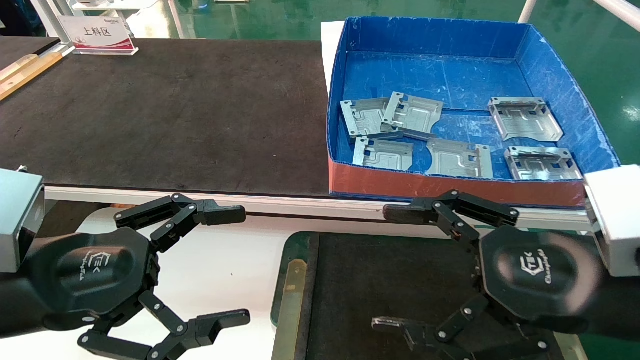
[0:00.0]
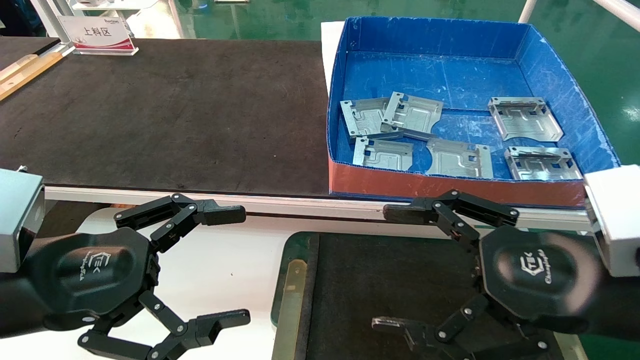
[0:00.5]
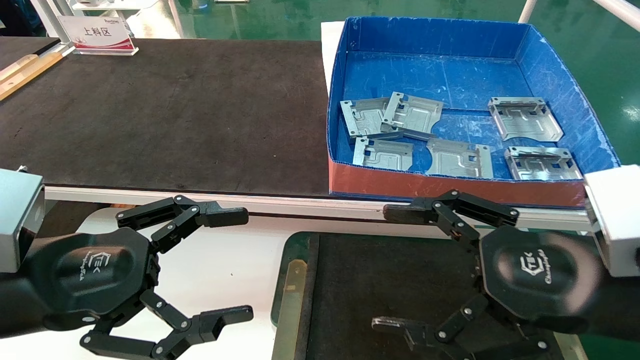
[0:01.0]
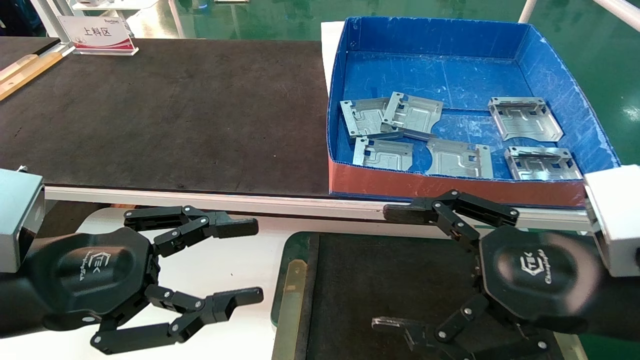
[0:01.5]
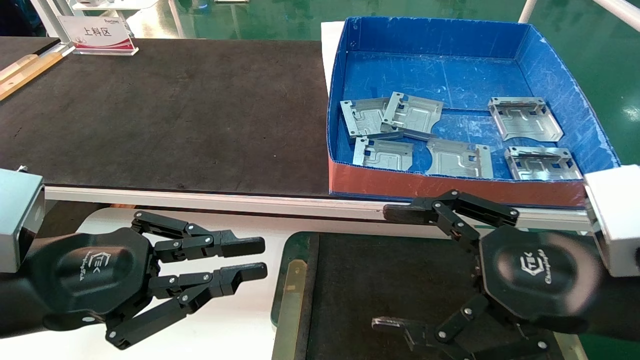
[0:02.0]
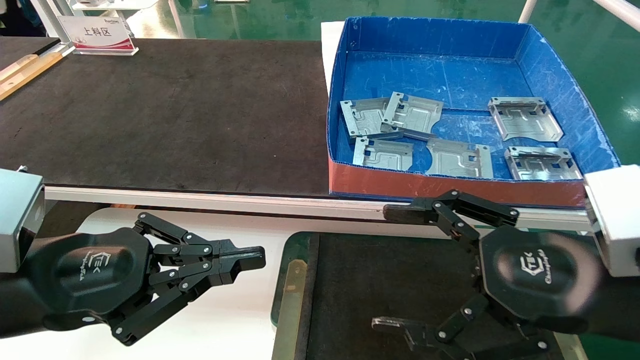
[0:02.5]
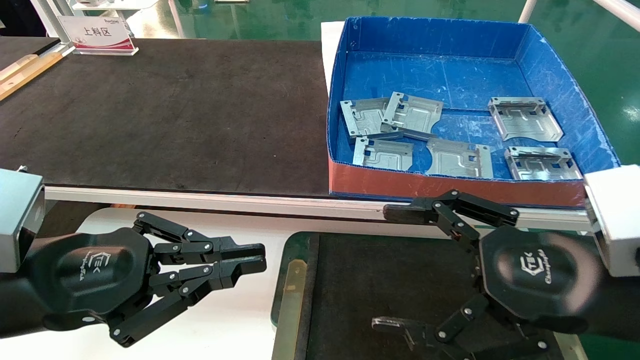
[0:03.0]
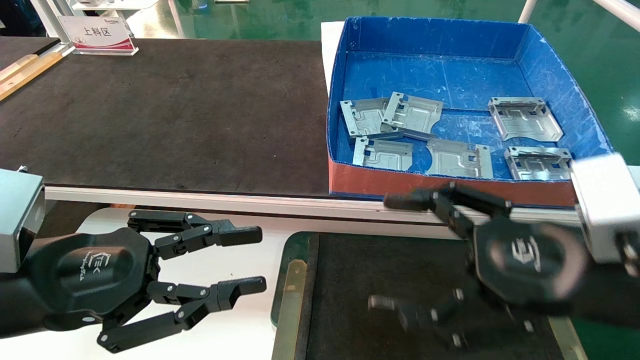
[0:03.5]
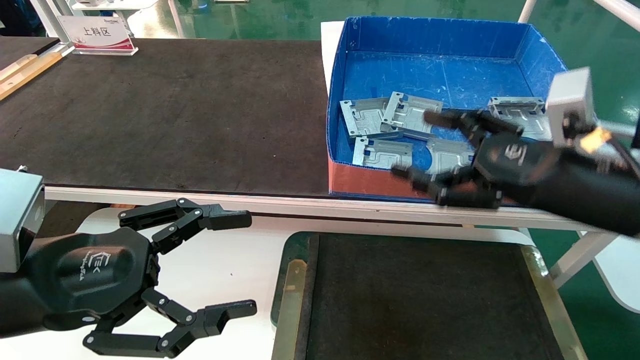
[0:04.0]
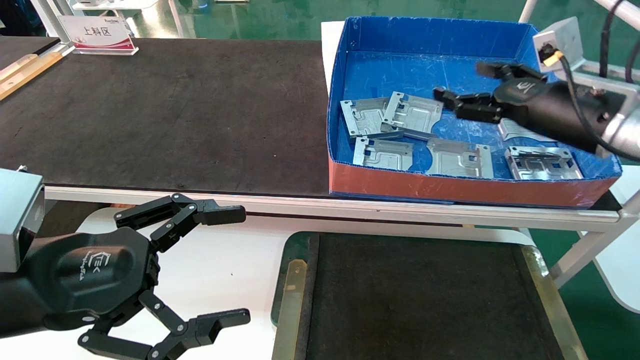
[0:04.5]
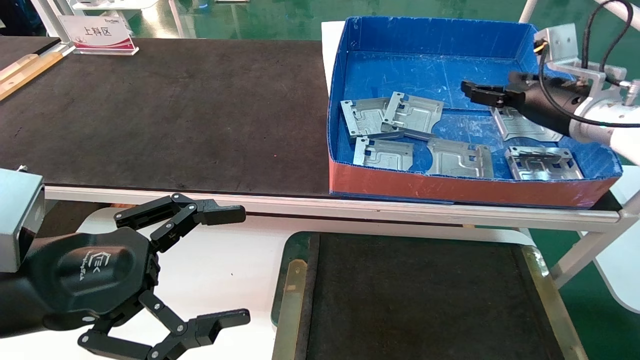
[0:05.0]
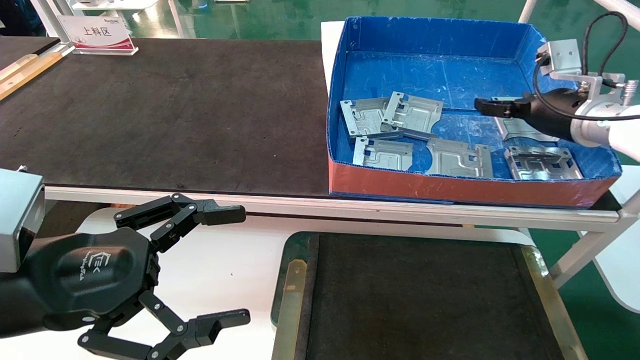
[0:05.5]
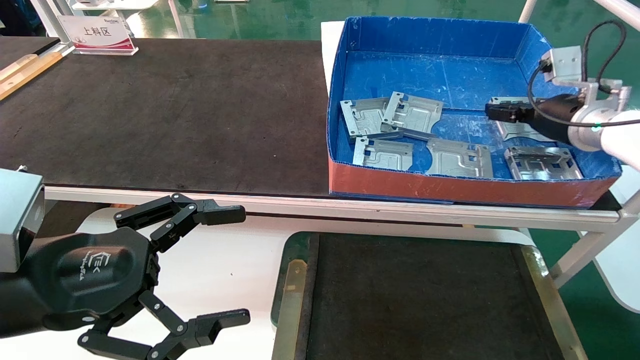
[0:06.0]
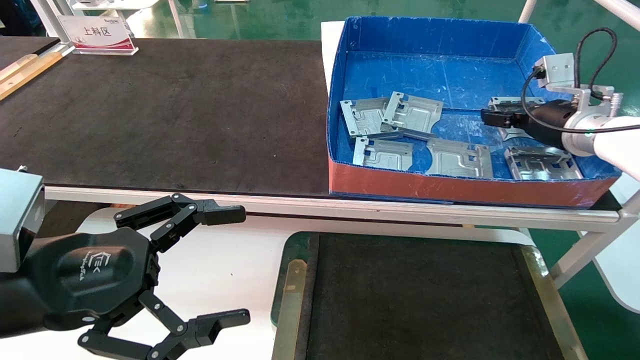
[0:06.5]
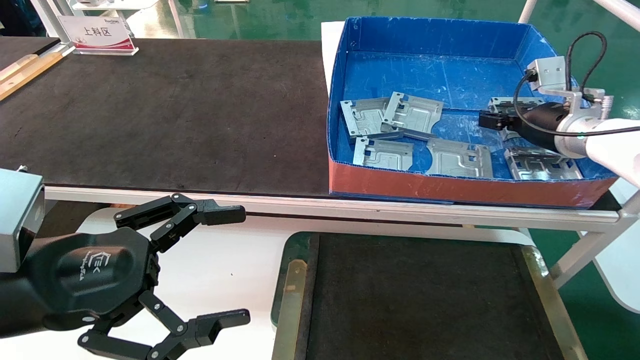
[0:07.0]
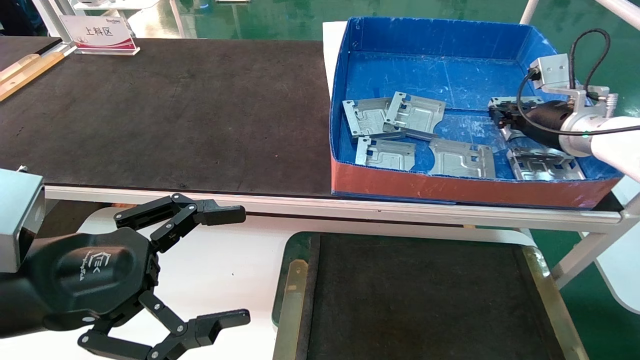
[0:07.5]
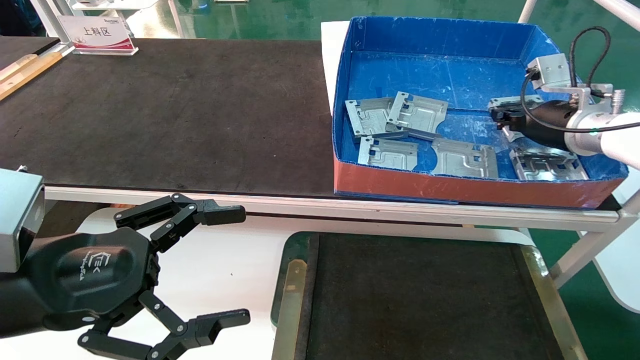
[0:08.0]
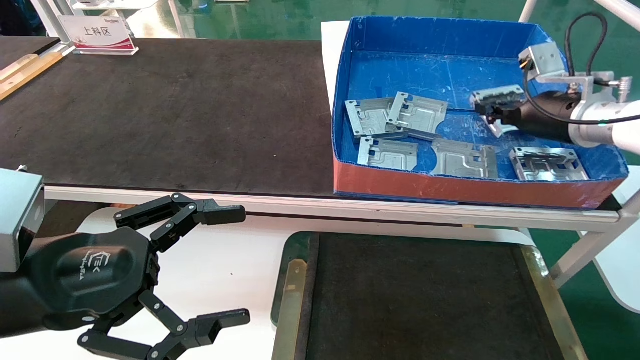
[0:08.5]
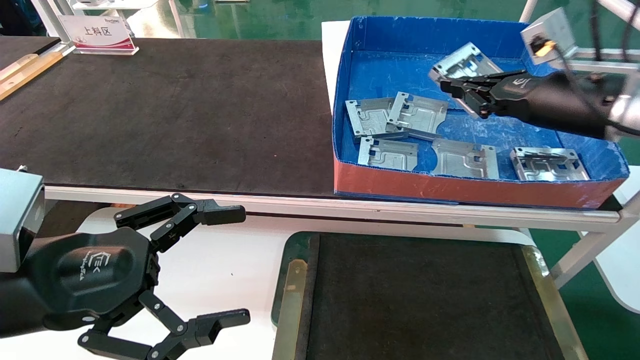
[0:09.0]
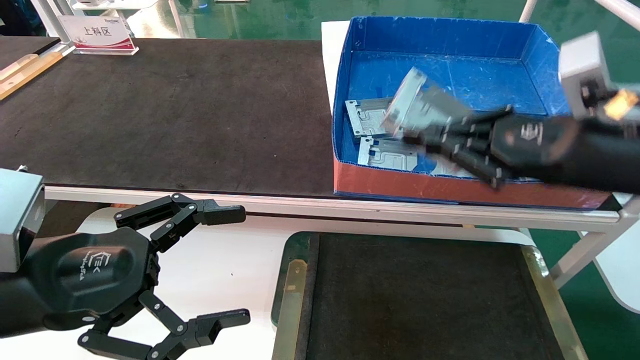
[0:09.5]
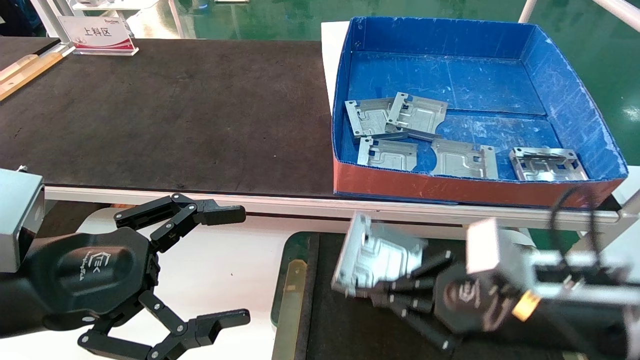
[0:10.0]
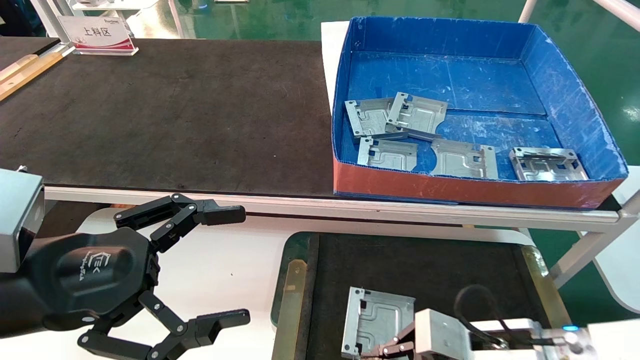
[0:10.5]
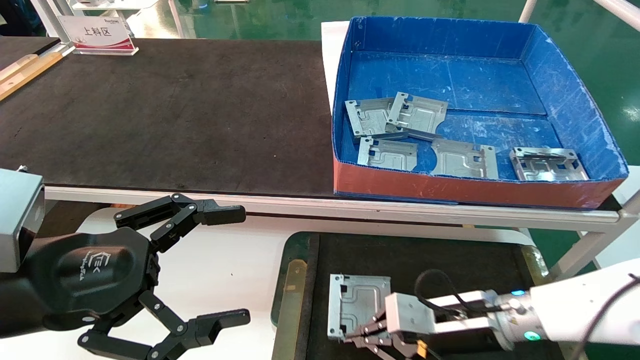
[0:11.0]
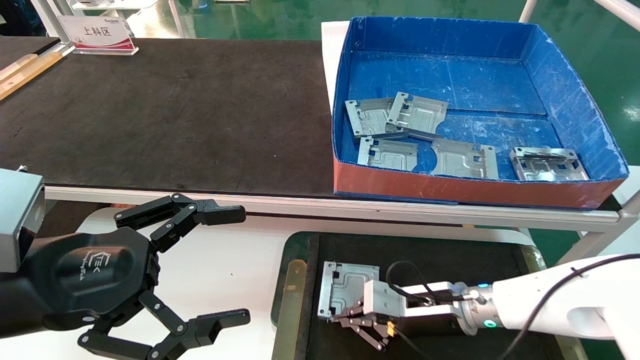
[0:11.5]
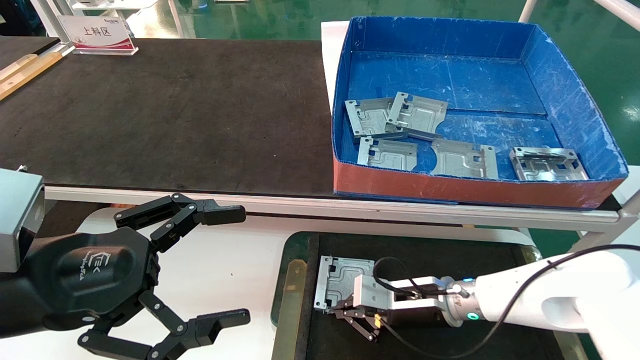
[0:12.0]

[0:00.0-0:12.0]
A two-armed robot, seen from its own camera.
Task of the whole recording: pick up parts and place them into a black container.
Step, 0:04.0 to 0:08.0: Pick up the hard drive bracket from the feeding area.
0:00.0 to 0:02.0: The left gripper closes its fingers.
0:02.0 to 0:04.0: The right gripper heads forward, covering about 10 cm. The left gripper opens.
0:04.0 to 0:06.0: The right gripper is displaced forward and to the right by approximately 20 cm.
0:06.0 to 0:08.0: The right gripper closes.
0:08.0 to 0:10.0: The right gripper is displaced backward, to the left and downward by roughly 30 cm.
0:10.0 to 0:12.0: The right gripper goes approximately 20 cm forward, downward and to the left.

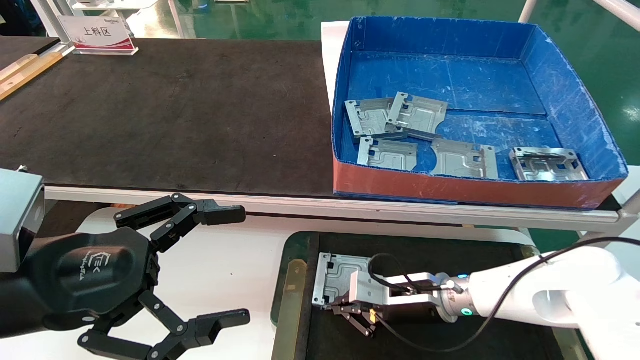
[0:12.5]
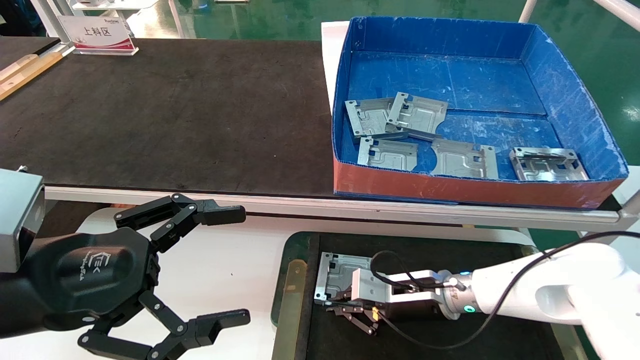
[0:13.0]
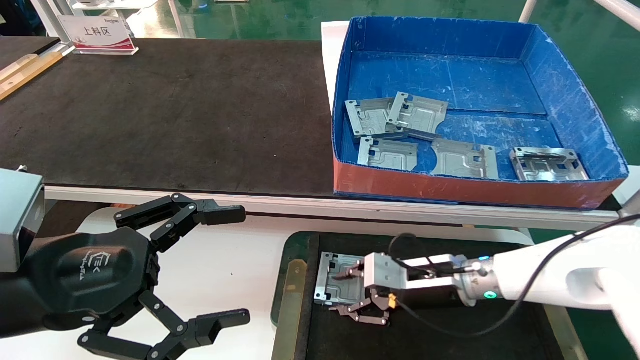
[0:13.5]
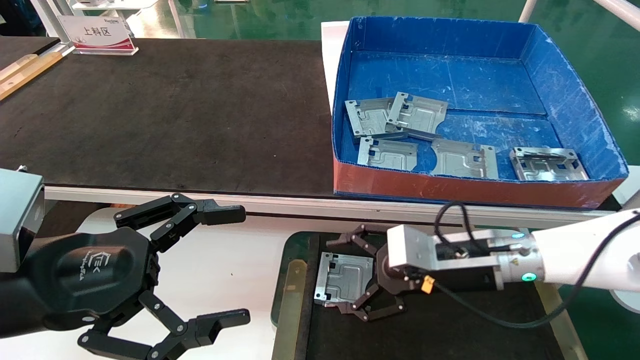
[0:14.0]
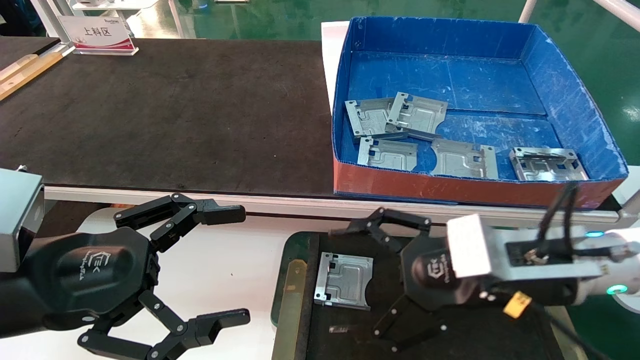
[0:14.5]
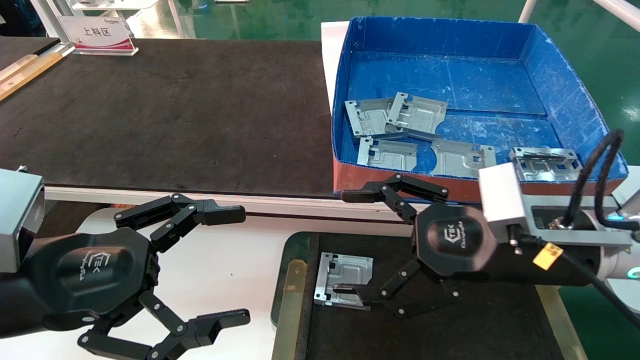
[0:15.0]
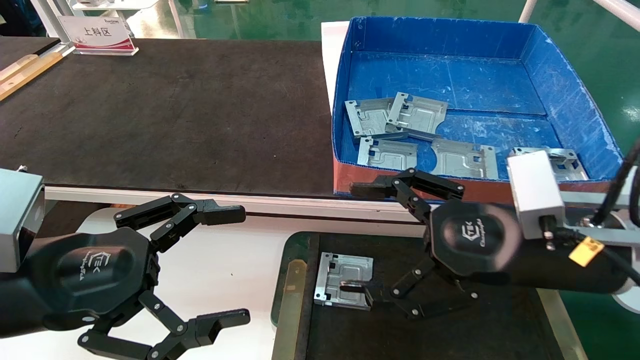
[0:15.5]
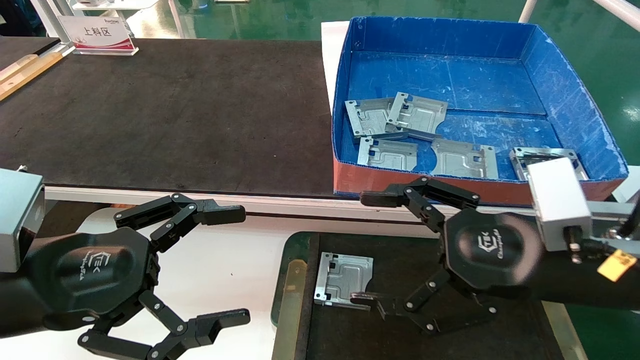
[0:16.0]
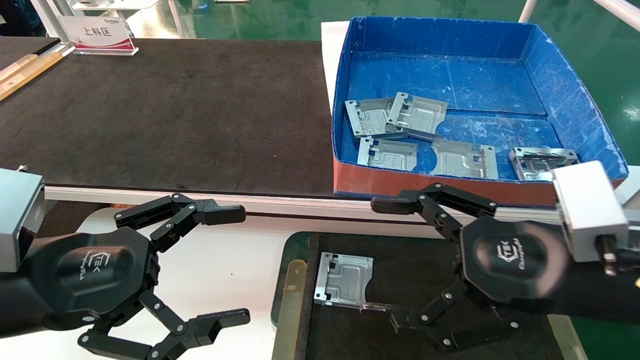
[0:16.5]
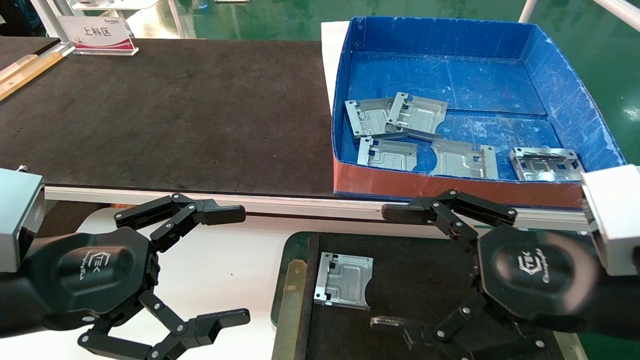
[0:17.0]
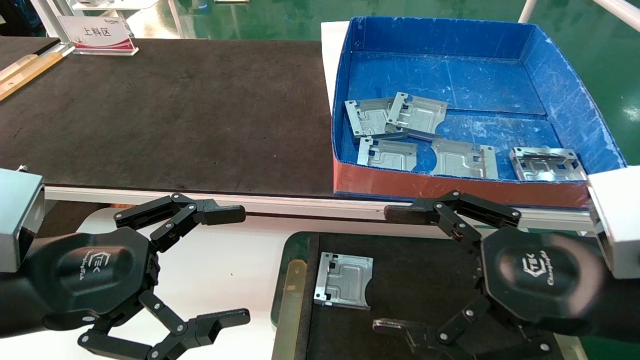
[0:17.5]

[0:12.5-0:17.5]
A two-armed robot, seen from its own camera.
Task of the whole recording: pick up parts and place them into a black container.
0:12.5 to 0:15.0: The right gripper goes about 25 cm upward and backward, and opens.
0:15.0 to 0:17.5: The right gripper goes roughly 10 cm backward.
